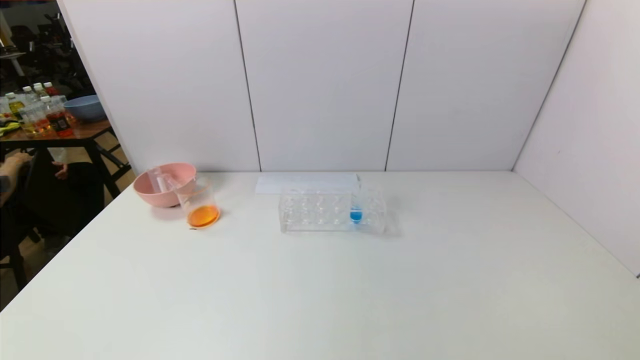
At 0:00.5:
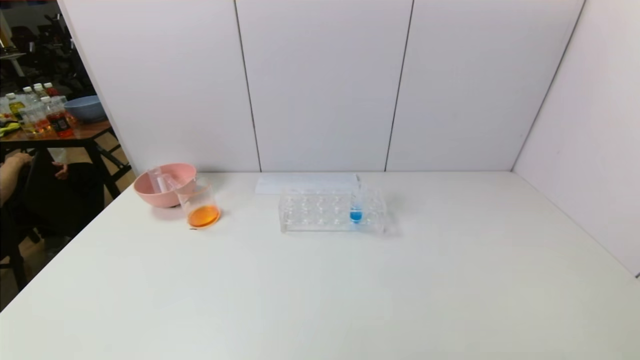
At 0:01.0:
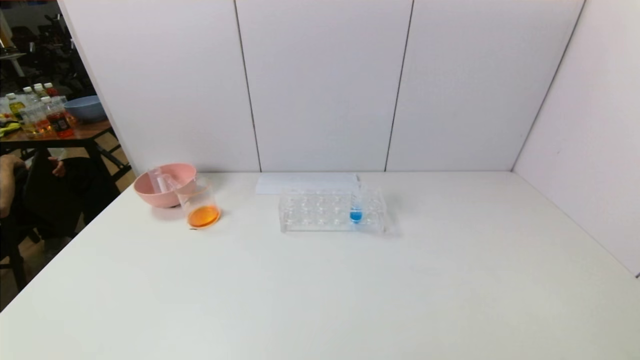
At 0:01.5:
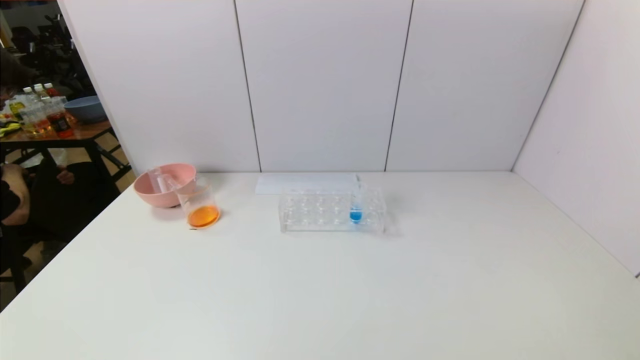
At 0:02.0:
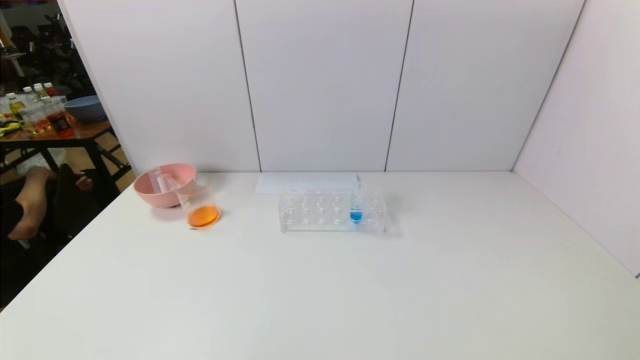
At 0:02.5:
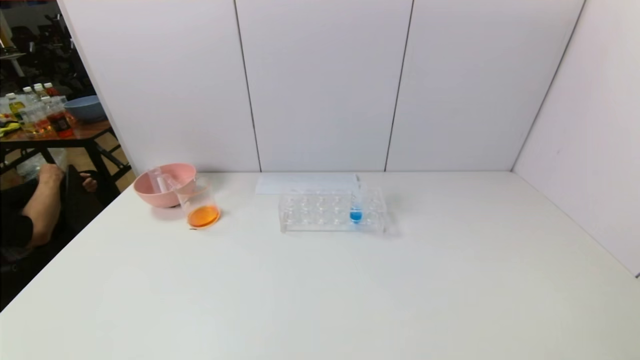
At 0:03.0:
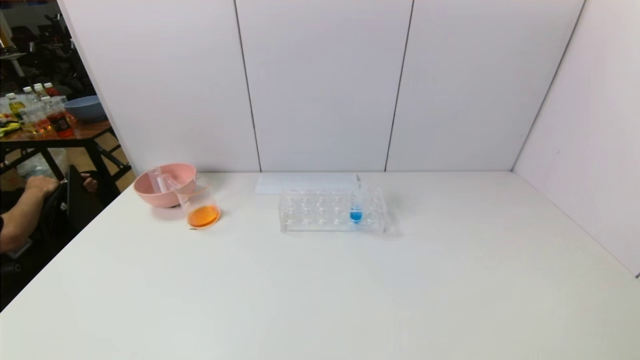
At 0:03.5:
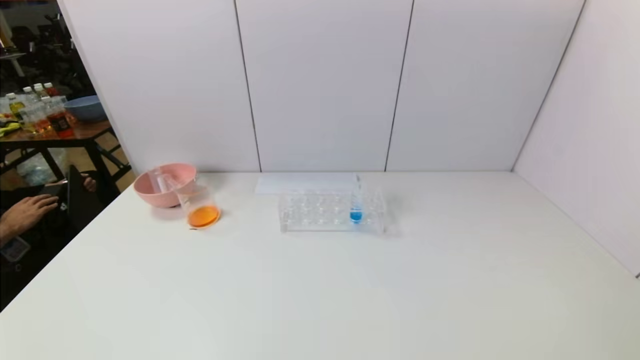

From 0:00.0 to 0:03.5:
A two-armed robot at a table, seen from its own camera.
Task of the whole recording: pick up the test tube with yellow pigment and the test tube with red pigment by grippers and pour them into the beaker.
From 0:00.0 to 0:02.0: The left gripper travels downward by roughly 25 cm.

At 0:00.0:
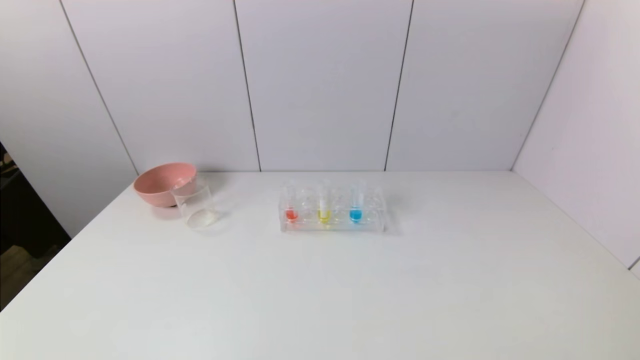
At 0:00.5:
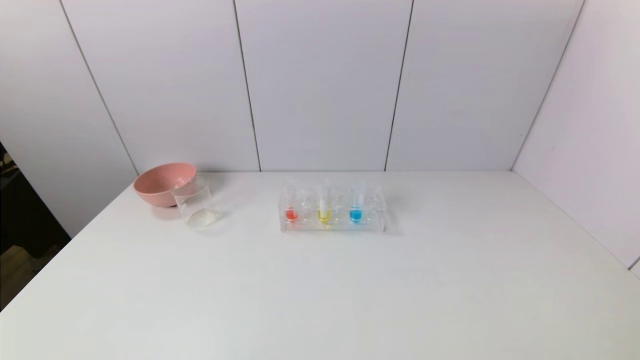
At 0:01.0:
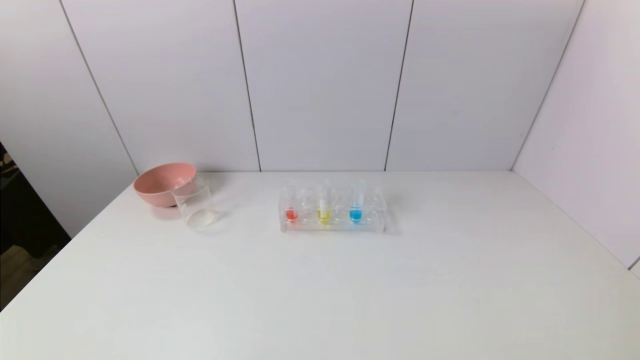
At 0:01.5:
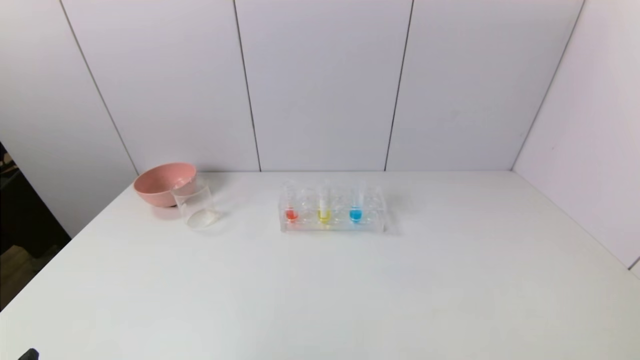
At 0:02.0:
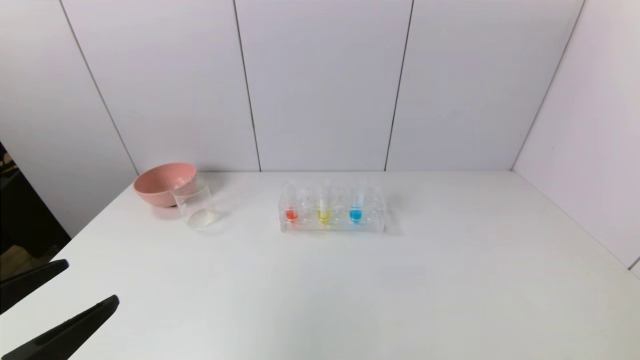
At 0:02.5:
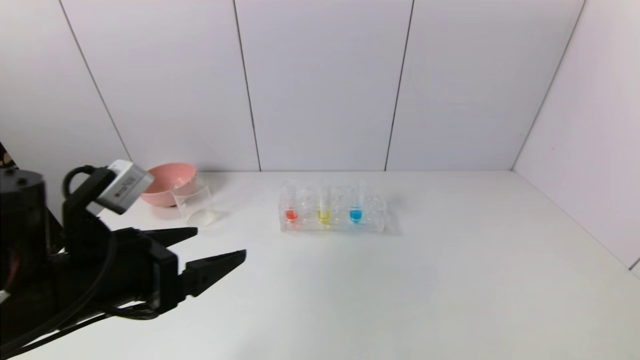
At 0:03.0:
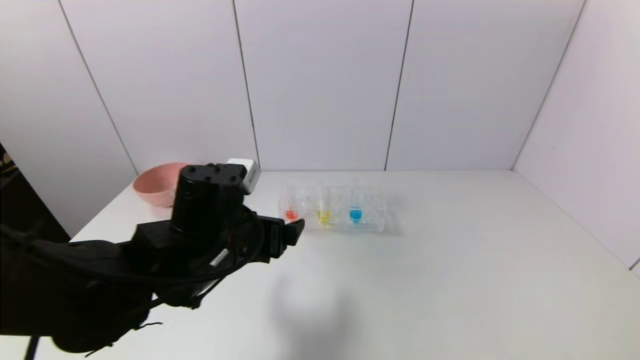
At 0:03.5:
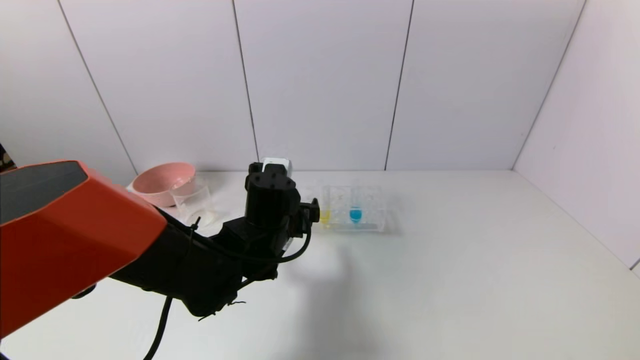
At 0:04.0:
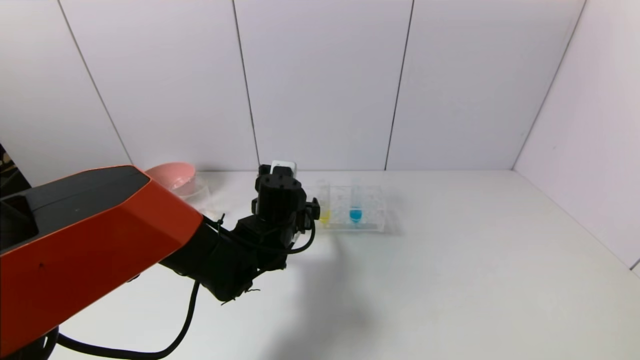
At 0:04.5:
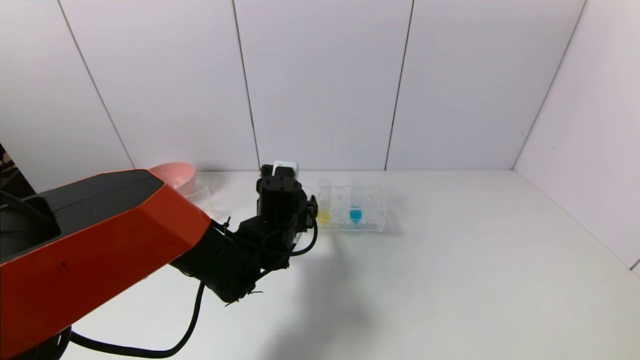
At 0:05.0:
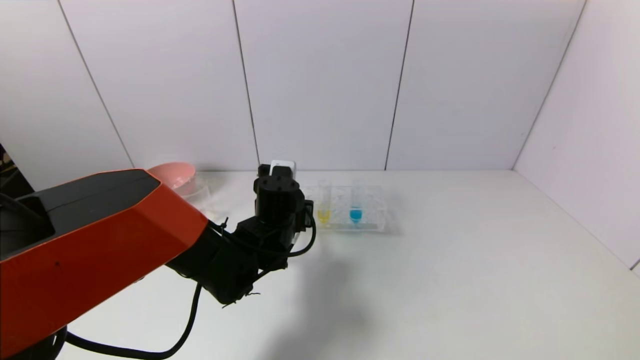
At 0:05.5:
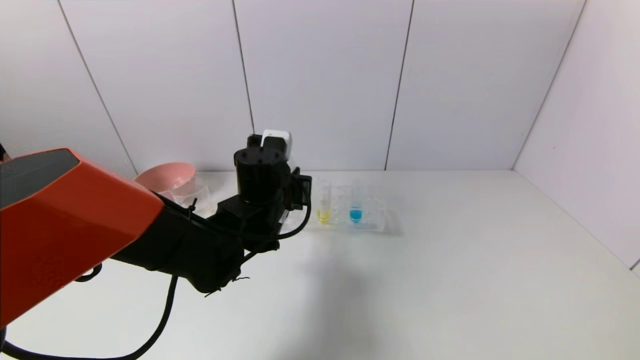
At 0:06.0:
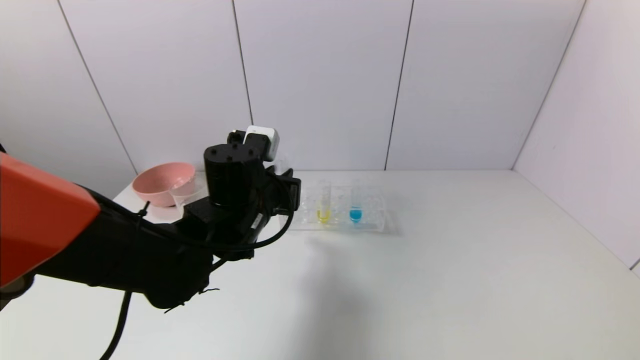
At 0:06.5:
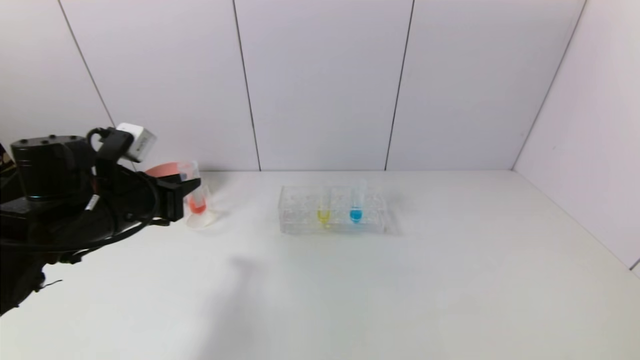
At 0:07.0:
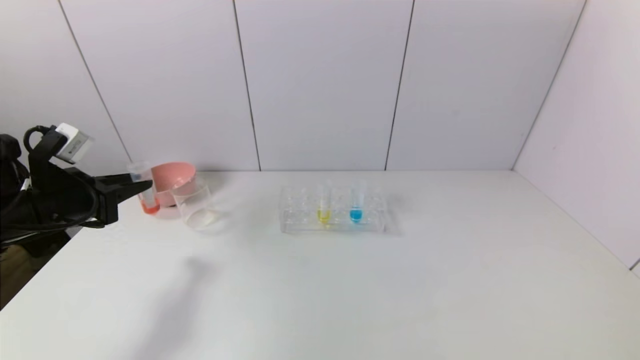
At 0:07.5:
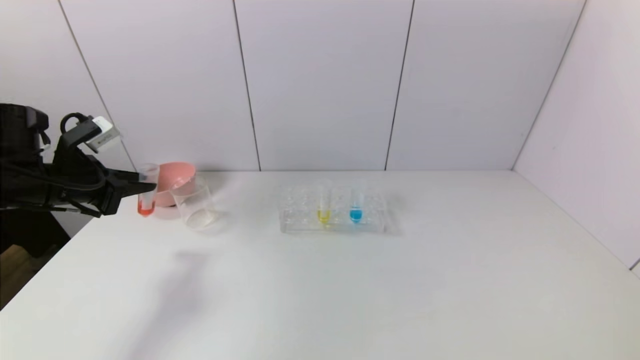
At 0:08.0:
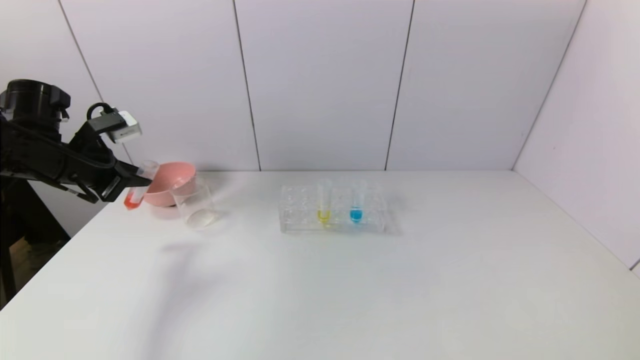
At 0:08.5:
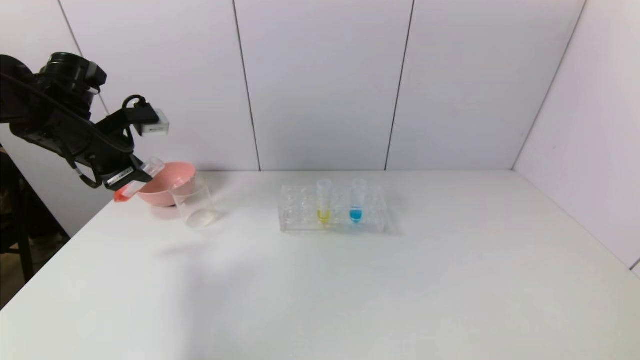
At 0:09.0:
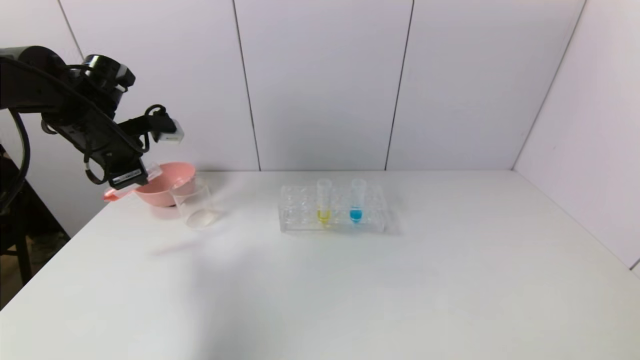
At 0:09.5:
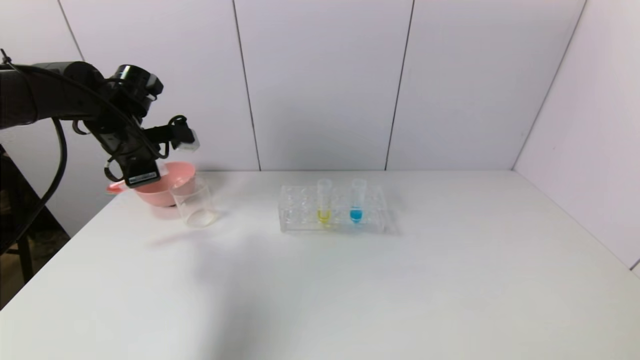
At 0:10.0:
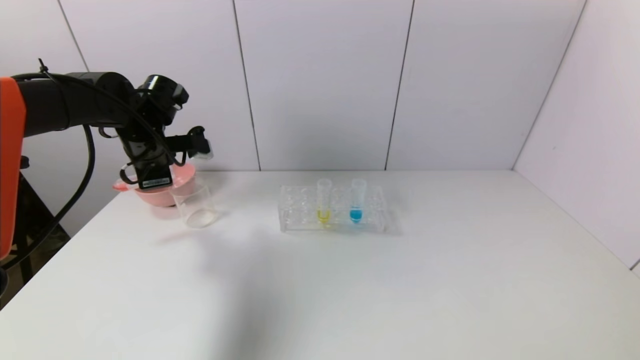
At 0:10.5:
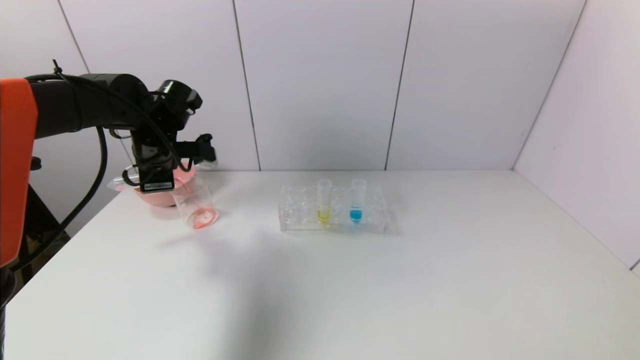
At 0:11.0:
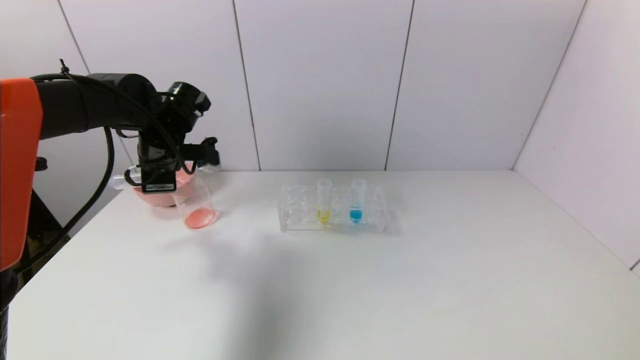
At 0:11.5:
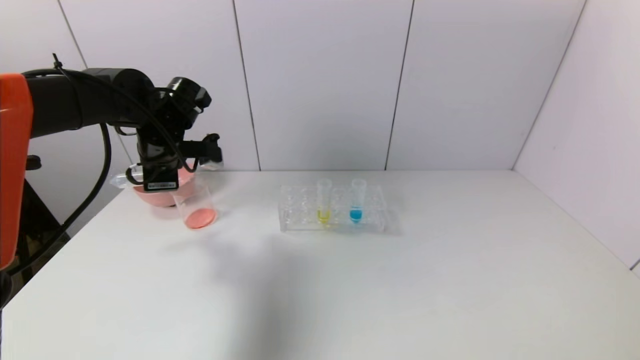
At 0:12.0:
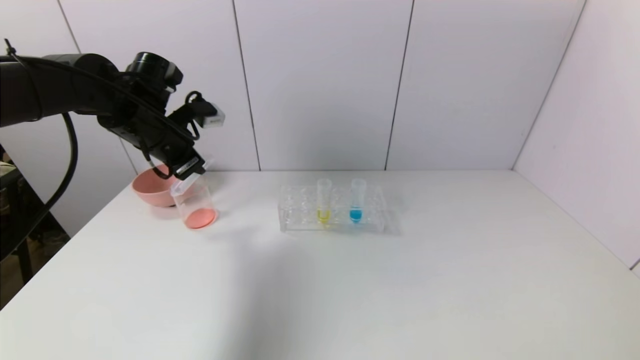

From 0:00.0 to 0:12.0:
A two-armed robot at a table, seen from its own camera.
Task of the whole recording: pick up the test tube with yellow pigment and the test tube with red pigment by grippers and pour them into the beaker.
Step, from 0:00.0 to 0:05.0: Grasp the red reagent with the left gripper.
Step, from 0:05.5 to 0:11.0: Pour the red reagent into the graduated cylinder with the left gripper.
From 0:00.0 to 0:02.0: The left gripper moves upward and forward, some 15 cm.
From 0:02.0 to 0:04.0: The left gripper moves forward and to the right, approximately 35 cm.
From 0:04.0 to 0:06.0: The left gripper shifts roughly 5 cm upward, and closes.
From 0:06.0 to 0:08.0: The left gripper travels to the left by some 25 cm.
From 0:08.0 to 0:10.0: The left gripper travels to the right and forward by roughly 10 cm.

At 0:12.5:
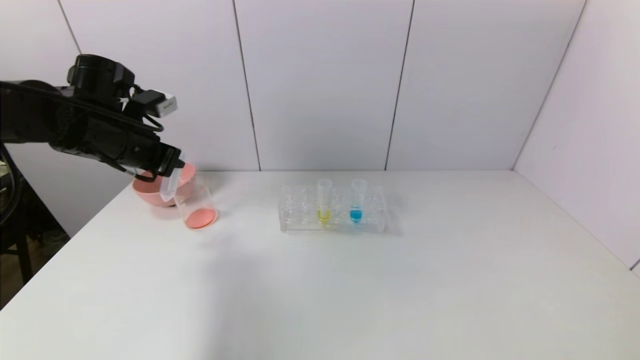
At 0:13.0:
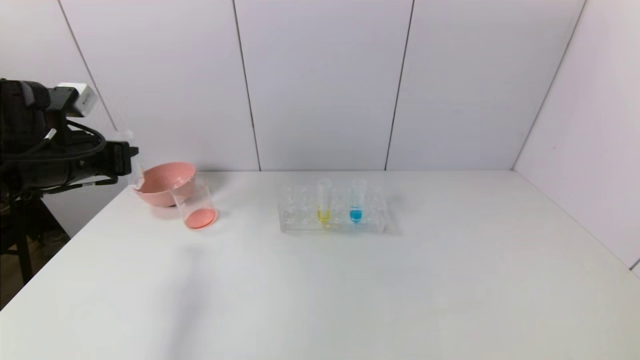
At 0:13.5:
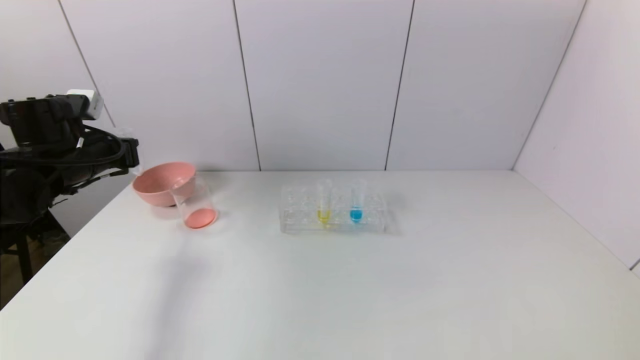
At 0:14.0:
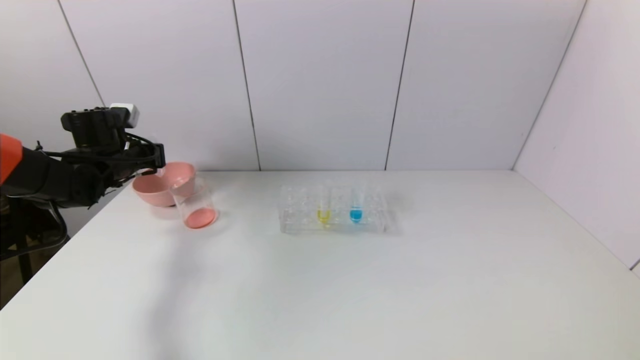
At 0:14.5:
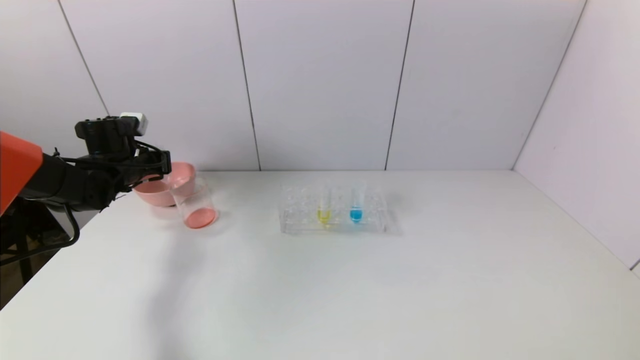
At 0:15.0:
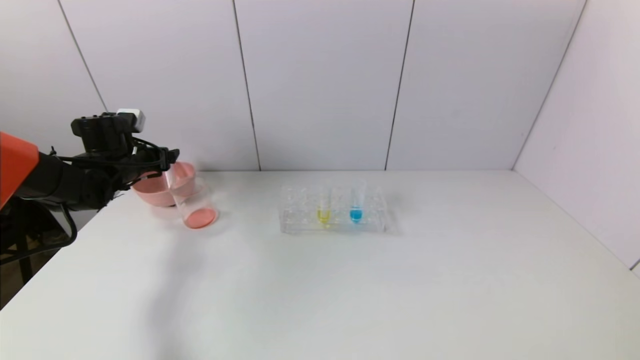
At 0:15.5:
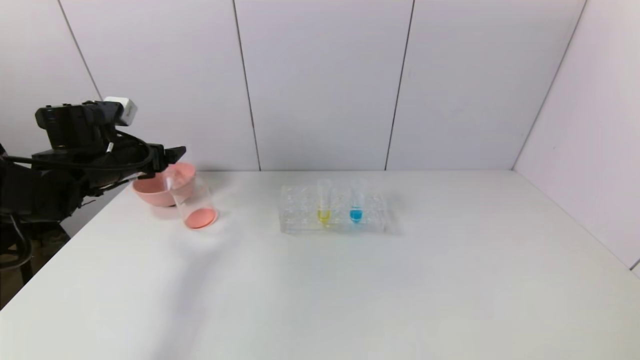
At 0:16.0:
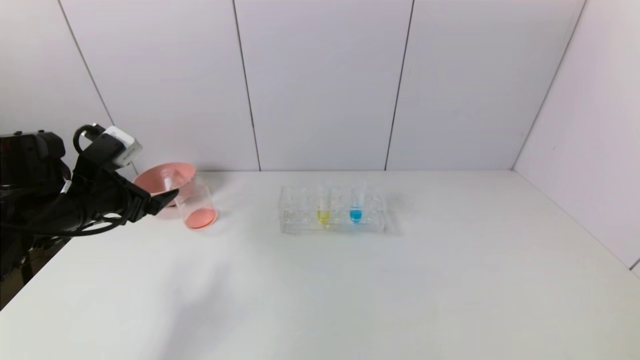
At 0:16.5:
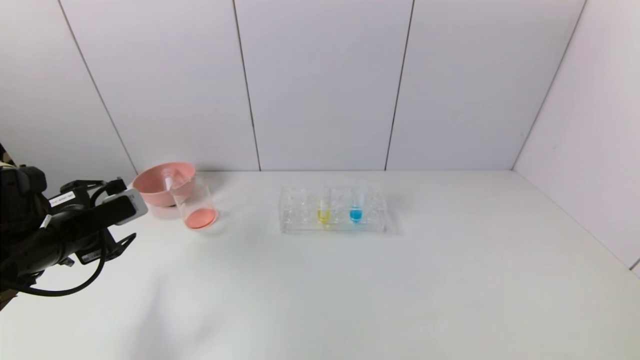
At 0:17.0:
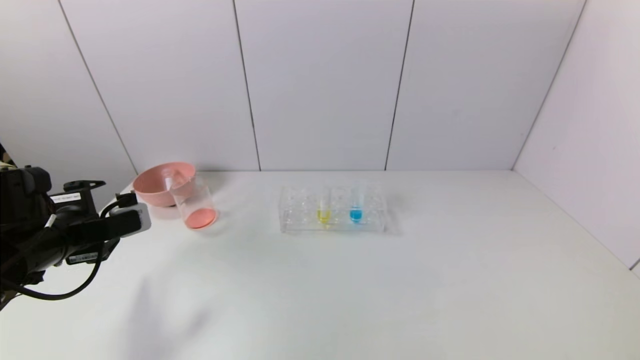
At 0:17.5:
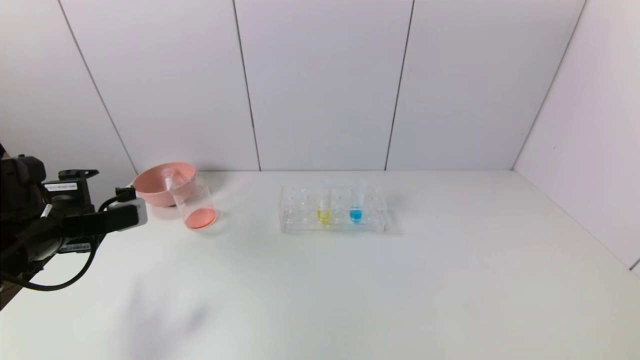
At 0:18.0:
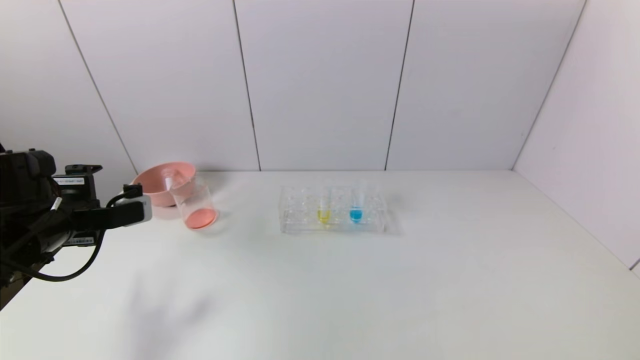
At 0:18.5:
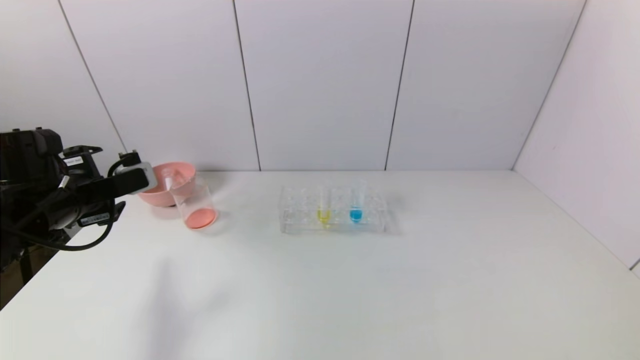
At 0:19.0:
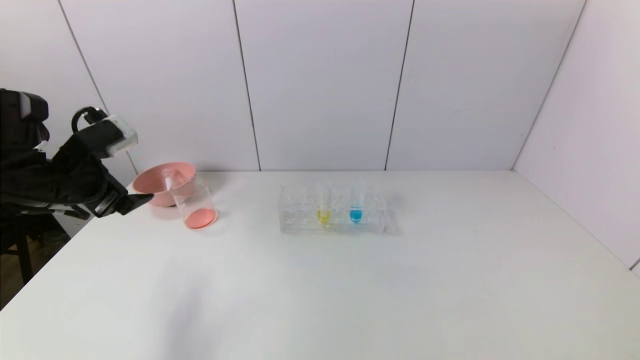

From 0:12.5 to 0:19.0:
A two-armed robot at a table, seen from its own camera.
Task of the whole recording: pick up the test tube with yellow pigment and the test tube with red pigment by grippers and pour them into the beaker.
Step, from 0:12.5 to 0:15.0: Place the test tube into the pink bowl with the left gripper.
From 0:12.5 to 0:14.5: The left gripper goes approximately 15 cm downward, forward and to the left.
From 0:14.5 to 0:17.0: The left gripper is displaced backward by some 20 cm, and opens its fingers.
From 0:17.0 to 0:19.0: The left gripper is displaced upward by roughly 10 cm.
